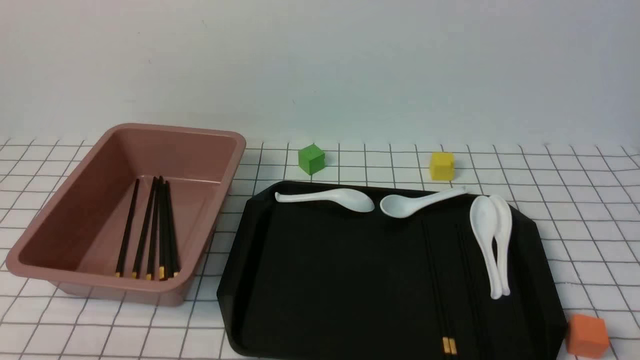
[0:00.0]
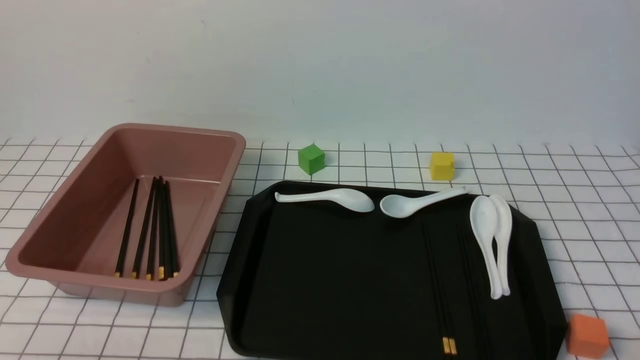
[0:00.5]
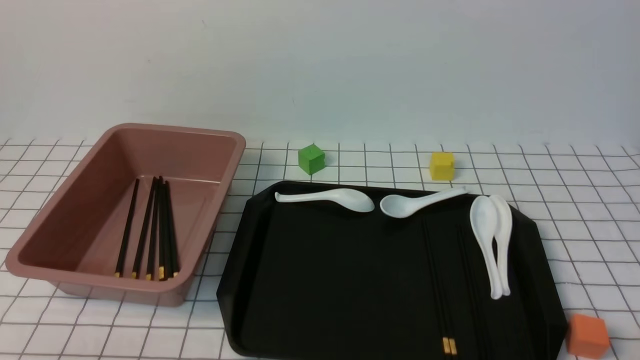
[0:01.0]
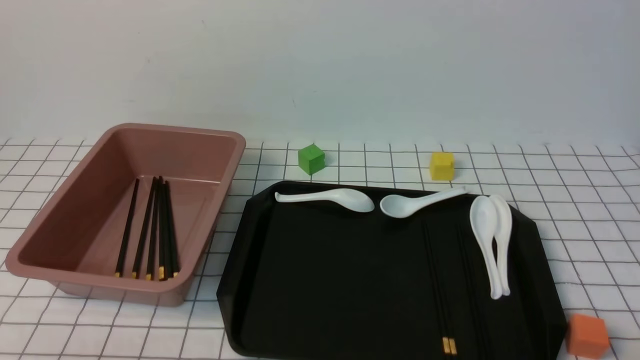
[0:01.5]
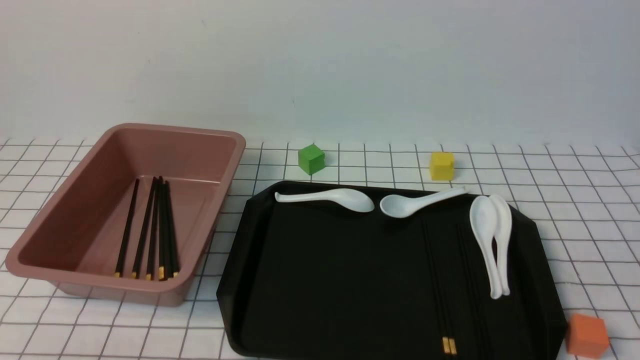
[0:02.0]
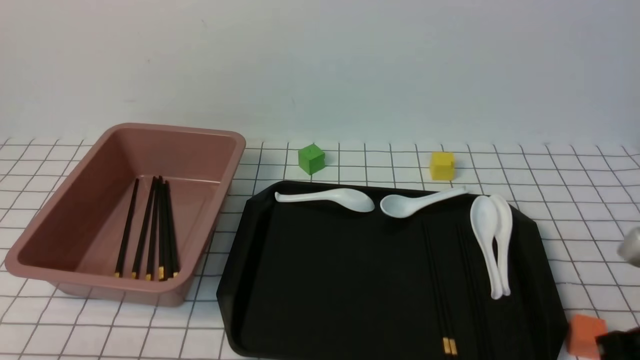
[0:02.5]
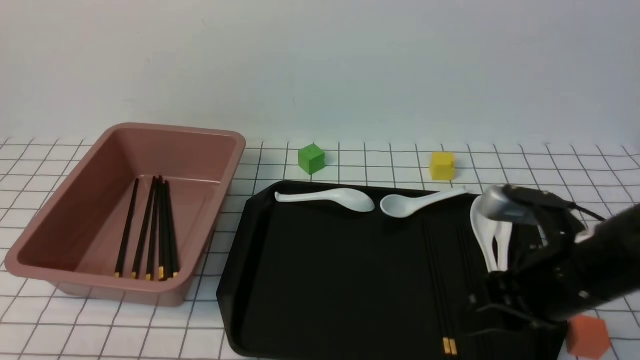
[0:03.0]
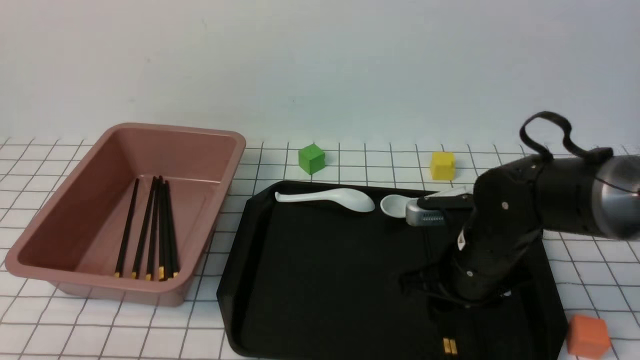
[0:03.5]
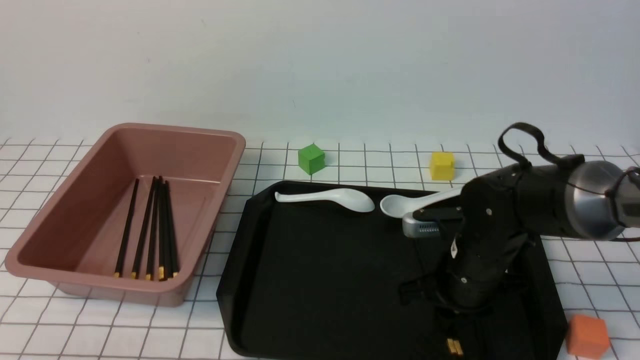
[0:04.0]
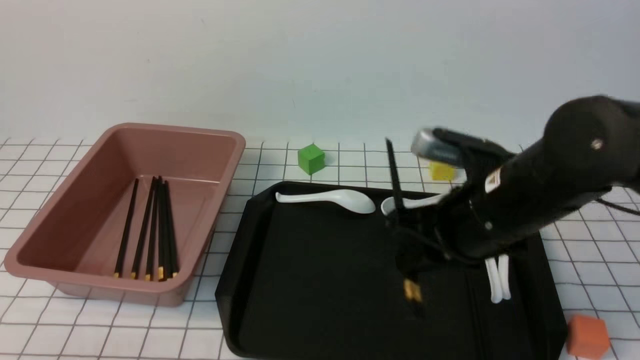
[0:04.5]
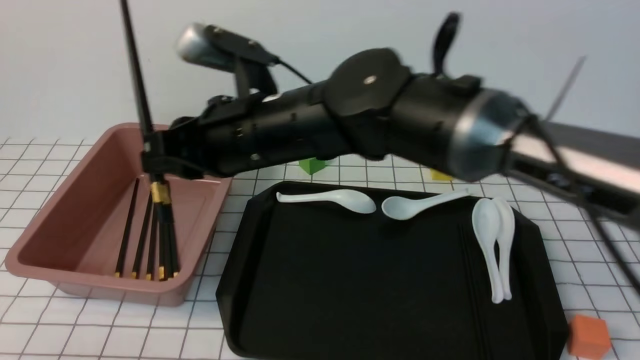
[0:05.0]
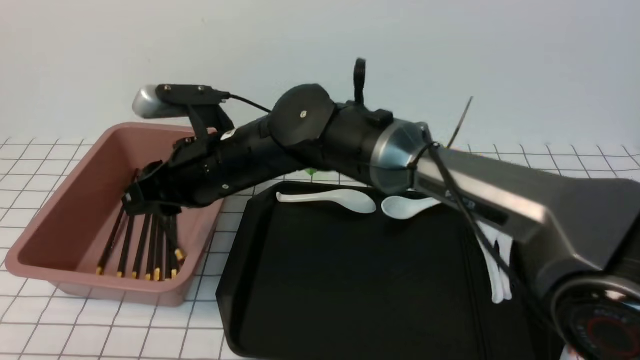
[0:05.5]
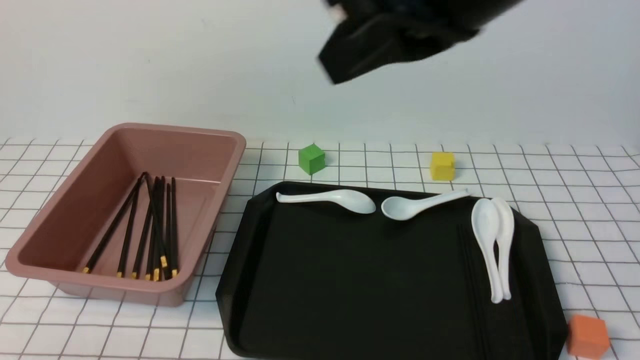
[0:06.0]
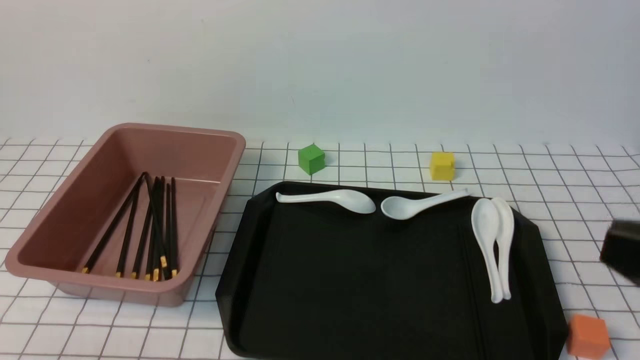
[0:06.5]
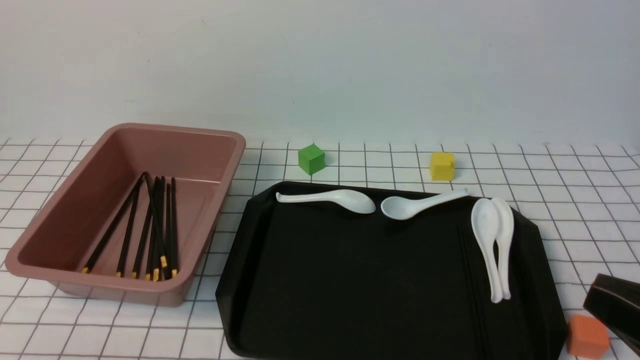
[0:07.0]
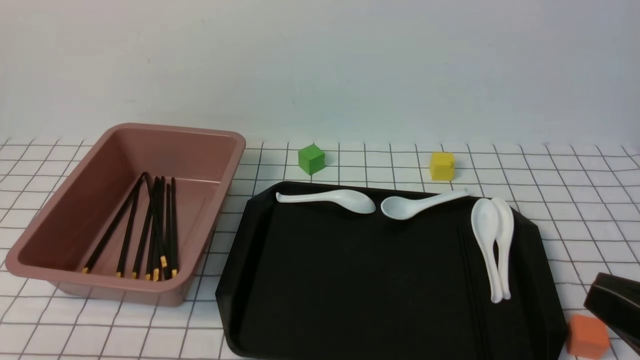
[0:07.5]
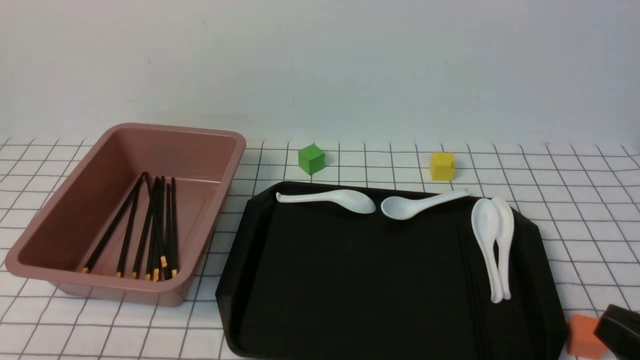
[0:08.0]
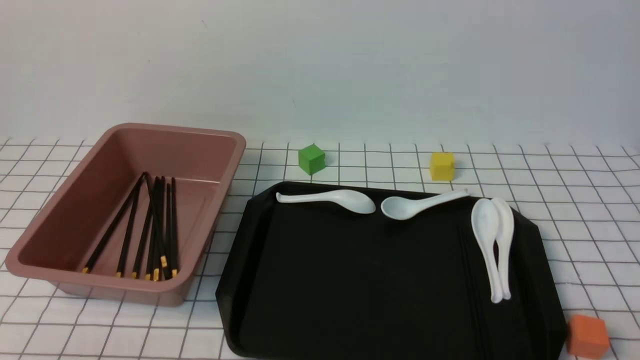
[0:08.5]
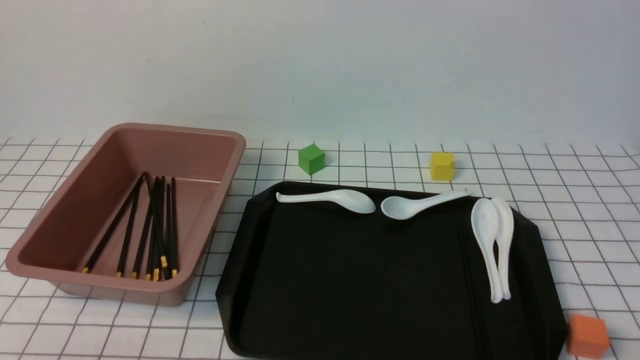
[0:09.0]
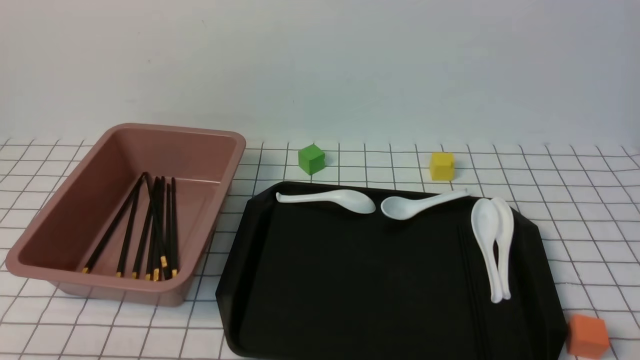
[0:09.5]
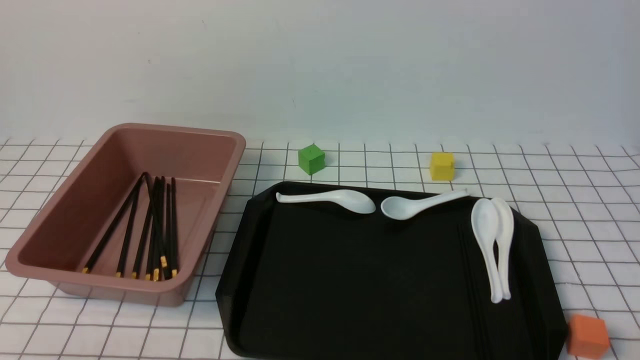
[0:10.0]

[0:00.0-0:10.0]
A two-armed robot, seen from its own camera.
Step, 0:00.0 to 0:04.0: use the right arm to grab a pair of chopsticks.
Step, 0:04.5 to 0:05.5: use the right arm to put the chopsticks into the lunch box.
0:02.0 to 0:04.0: The right gripper shifts approximately 30 cm forward, to the left and downward, and opens and closes again.
0:04.0 to 0:06.0: The right gripper goes approximately 35 cm upward, and closes its fingers.
0:06.0 to 0:08.0: The right gripper is displaced downward, to the right and backward by roughly 30 cm.
0:08.0 to 0:10.0: The right gripper travels downward by roughly 10 cm.
